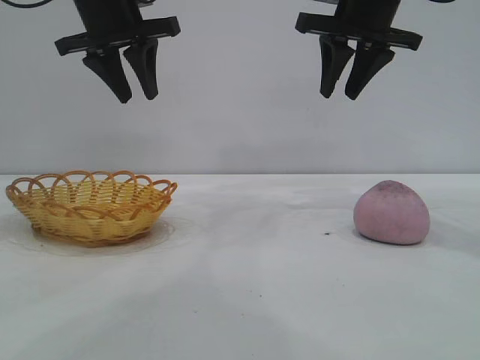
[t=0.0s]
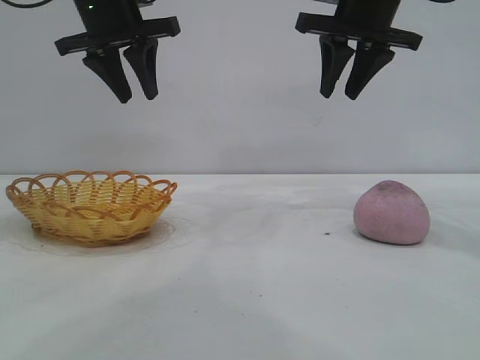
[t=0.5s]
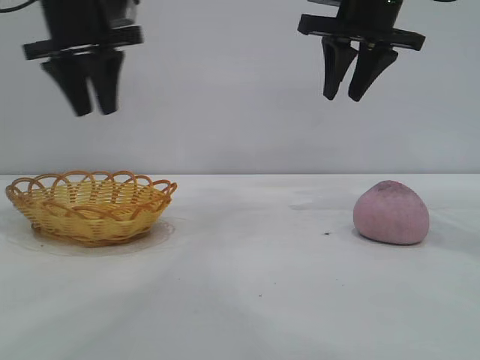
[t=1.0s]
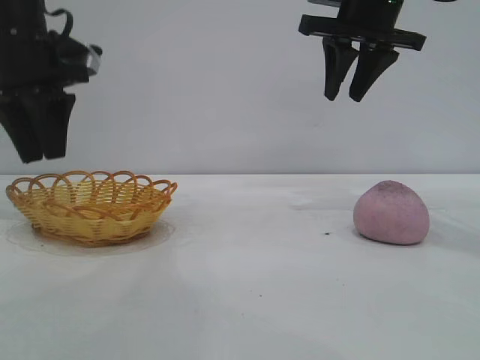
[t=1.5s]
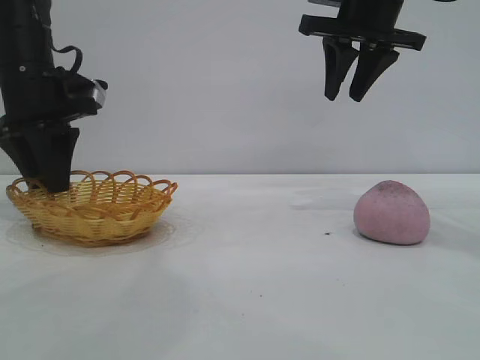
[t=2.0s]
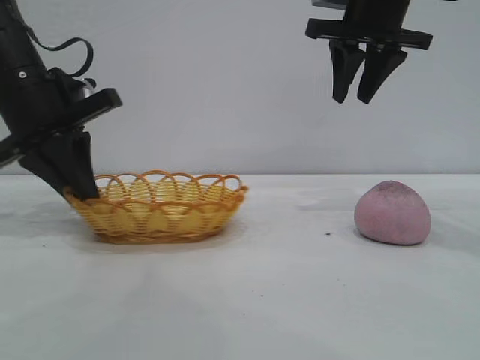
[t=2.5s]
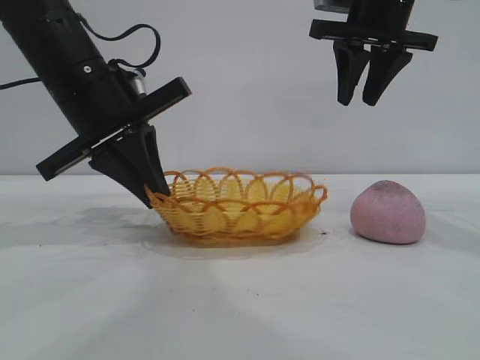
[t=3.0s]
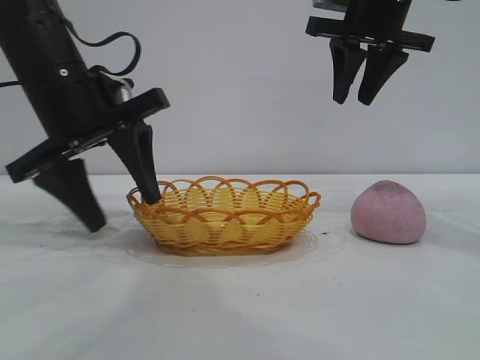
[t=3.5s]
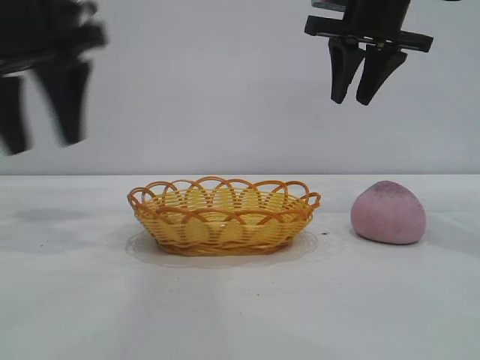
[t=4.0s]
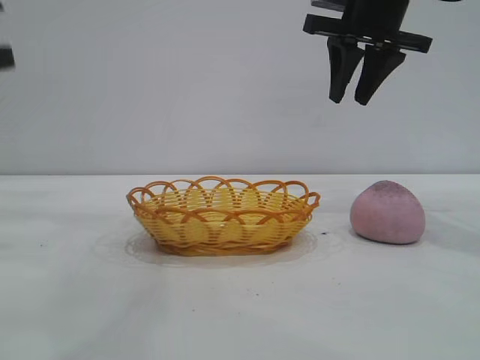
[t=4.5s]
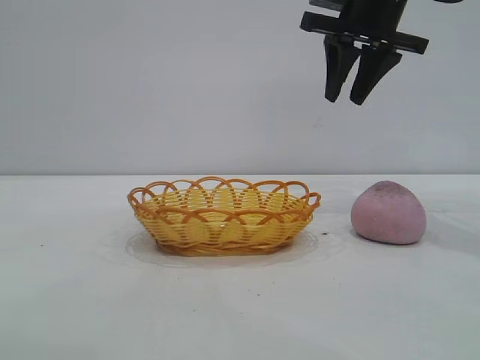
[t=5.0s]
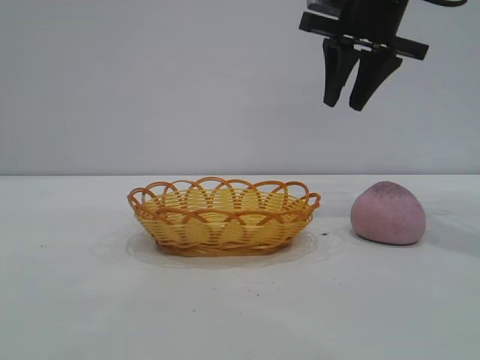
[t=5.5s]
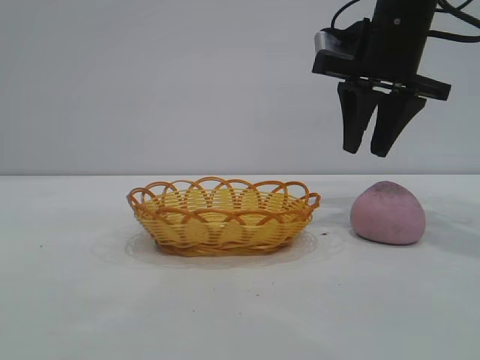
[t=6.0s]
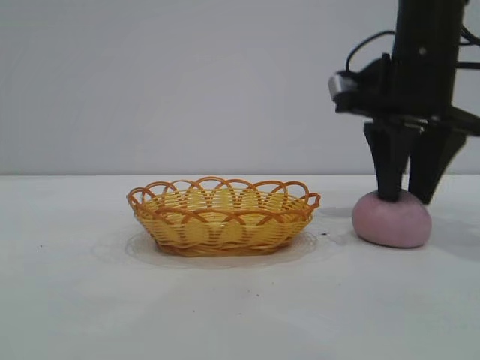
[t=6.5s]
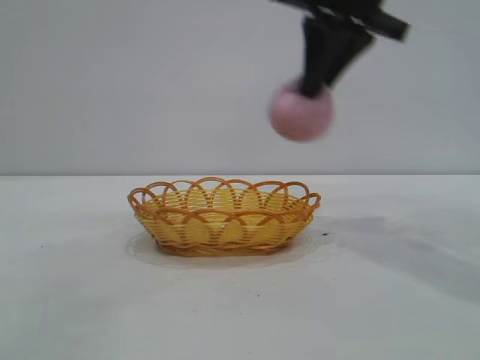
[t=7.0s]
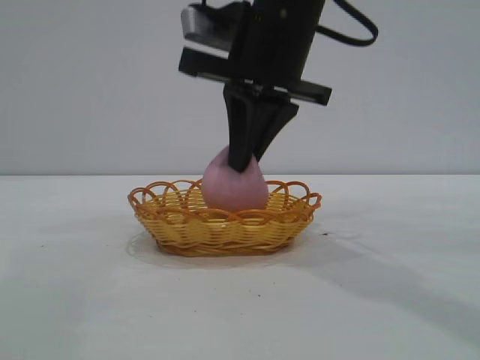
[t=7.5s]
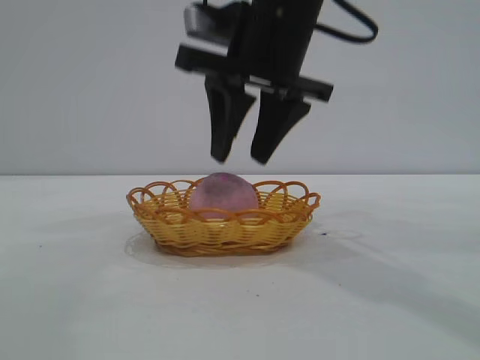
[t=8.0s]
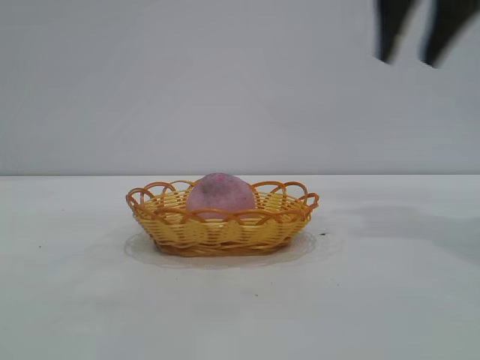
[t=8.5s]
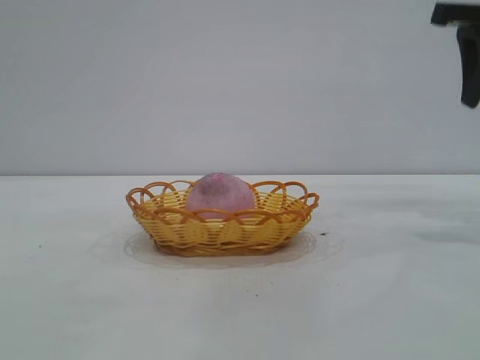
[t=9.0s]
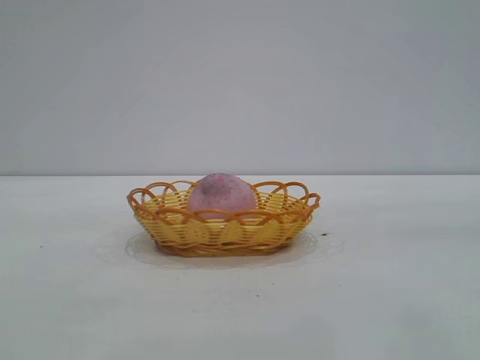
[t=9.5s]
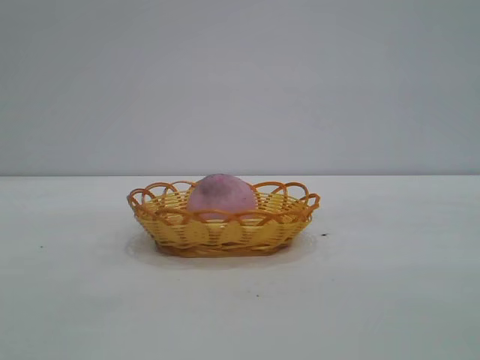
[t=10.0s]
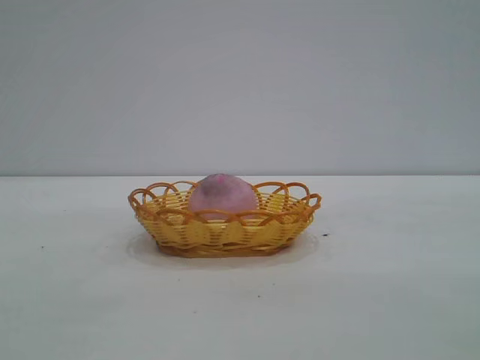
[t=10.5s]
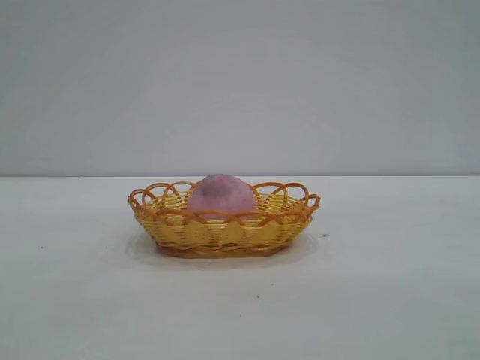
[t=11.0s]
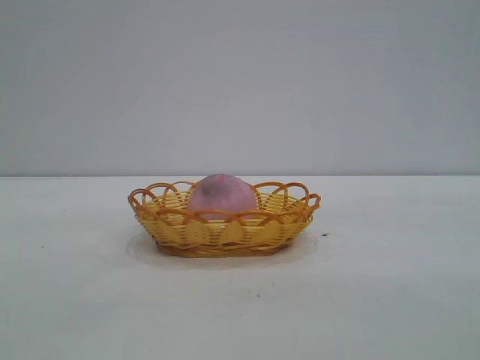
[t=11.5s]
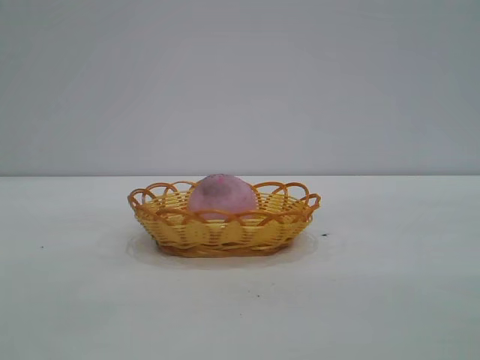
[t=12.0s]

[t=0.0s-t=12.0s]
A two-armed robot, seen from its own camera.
Task of the whole recording: pick up the peach and put it into the basket.
Step, t=0.0s to t=3.5s: Move the basket to the center of view.
Step, t=4.0s to t=6.5s: Pick up the peach.
Step, t=7.0s to t=8.0s: place the peach into the basket.
